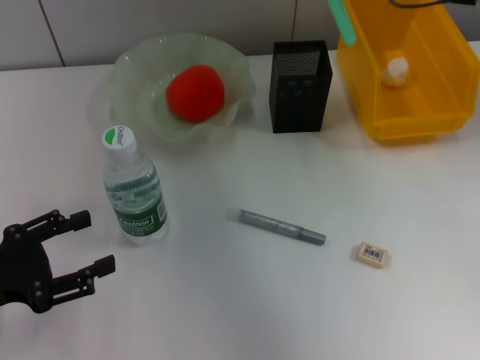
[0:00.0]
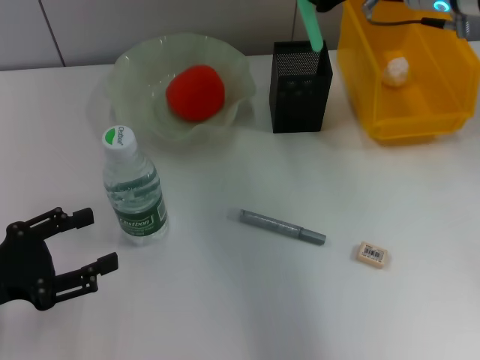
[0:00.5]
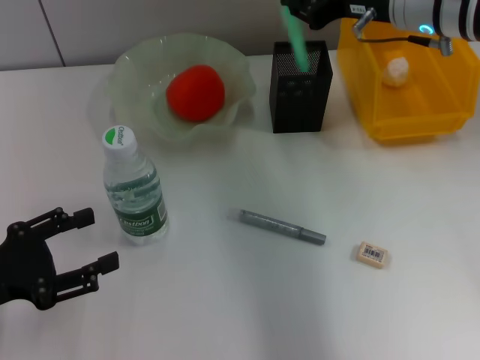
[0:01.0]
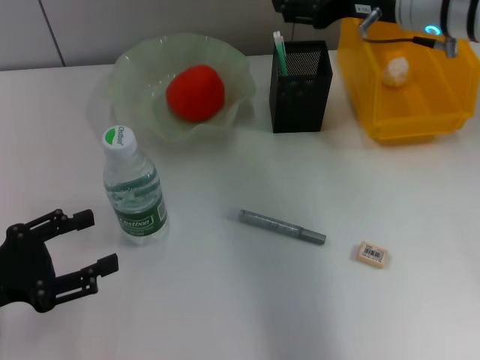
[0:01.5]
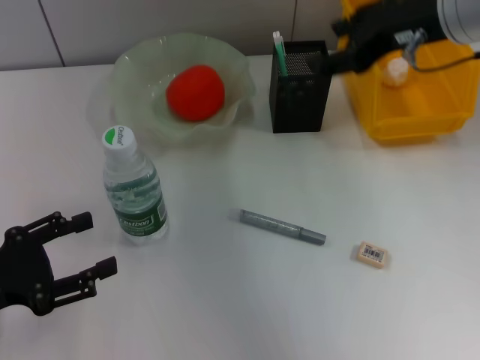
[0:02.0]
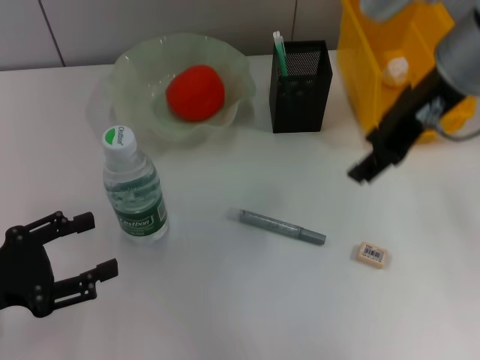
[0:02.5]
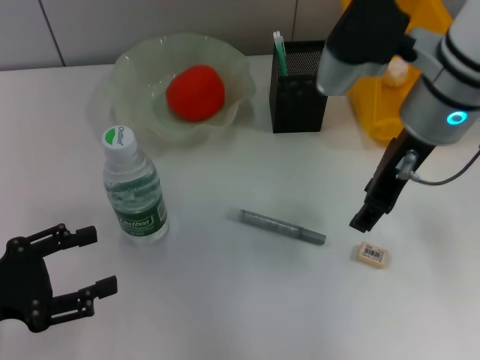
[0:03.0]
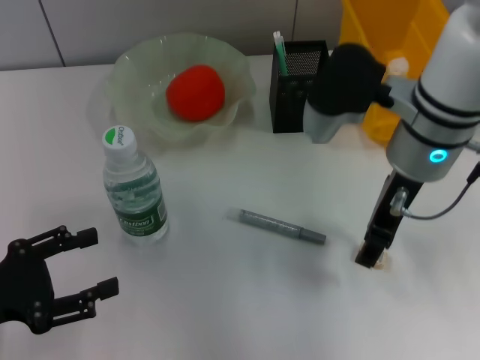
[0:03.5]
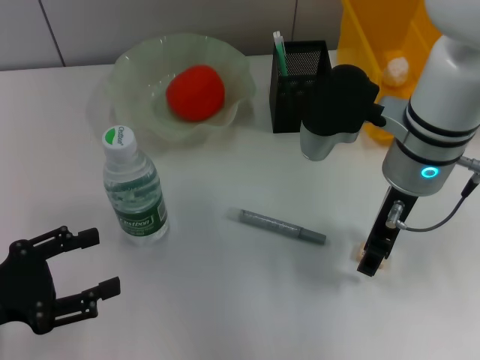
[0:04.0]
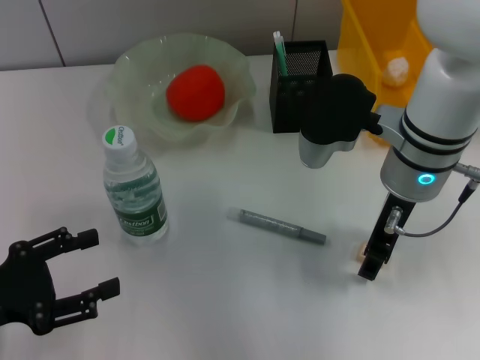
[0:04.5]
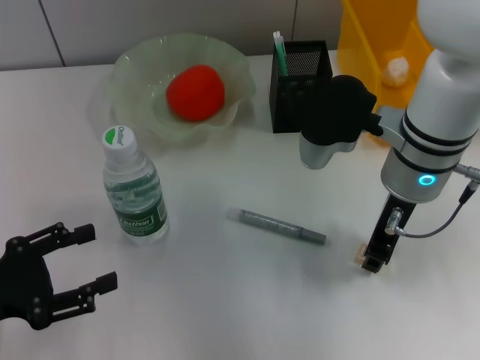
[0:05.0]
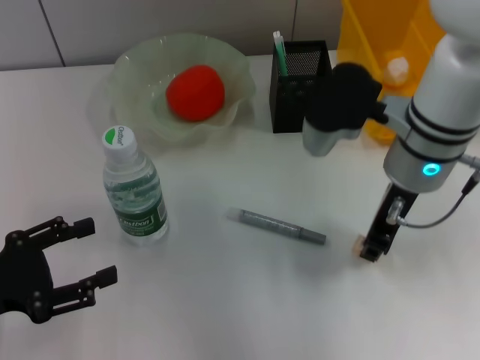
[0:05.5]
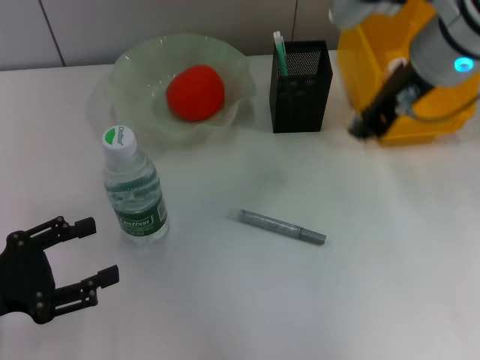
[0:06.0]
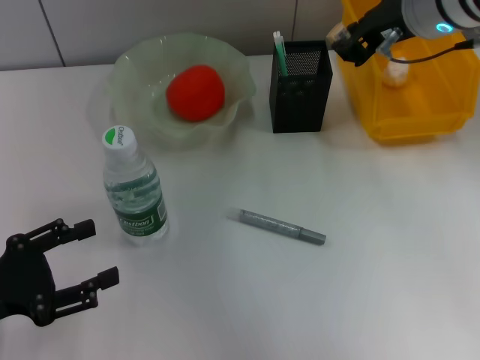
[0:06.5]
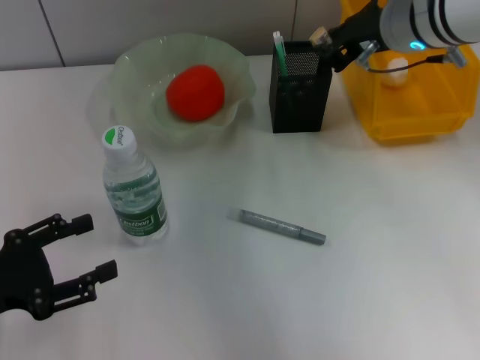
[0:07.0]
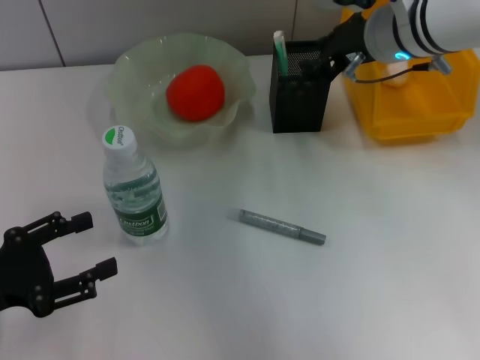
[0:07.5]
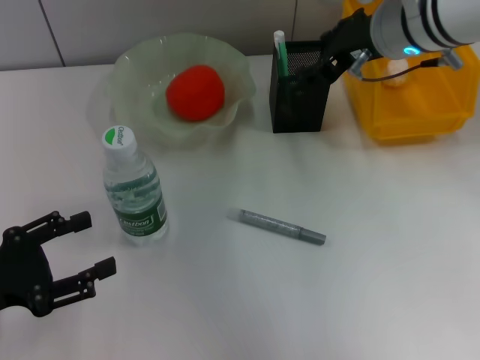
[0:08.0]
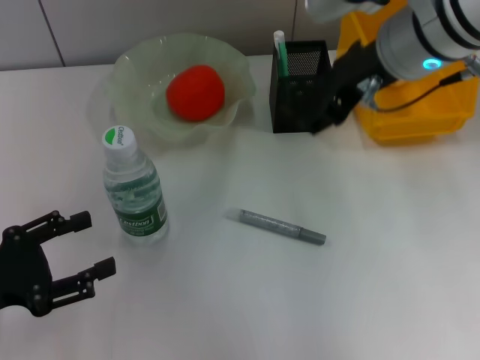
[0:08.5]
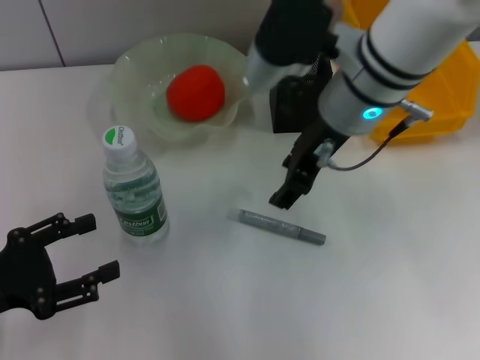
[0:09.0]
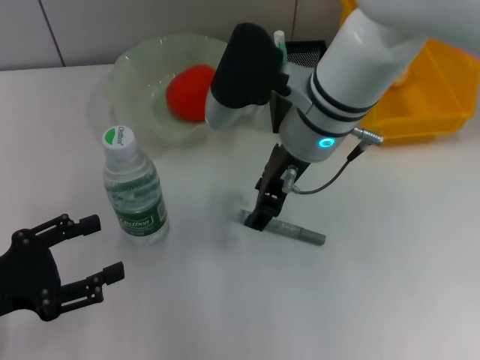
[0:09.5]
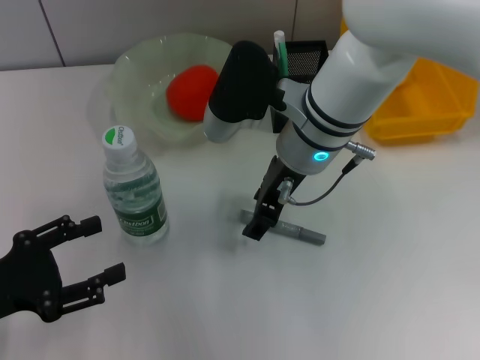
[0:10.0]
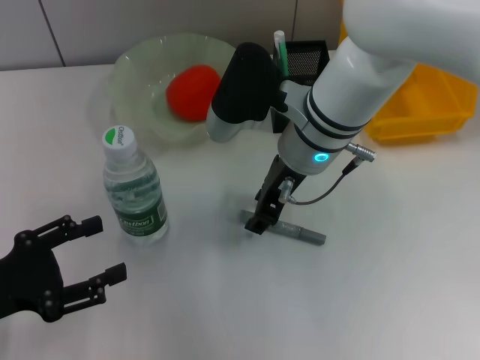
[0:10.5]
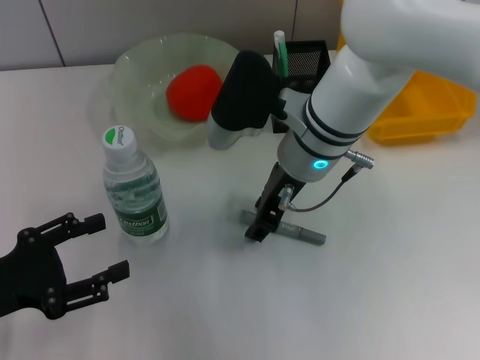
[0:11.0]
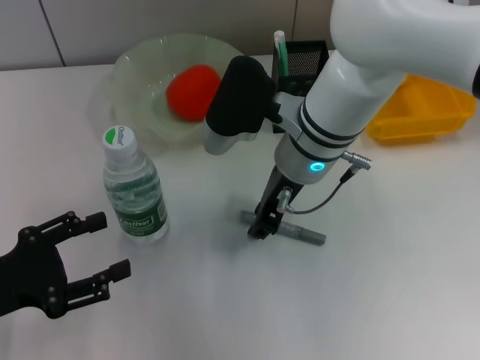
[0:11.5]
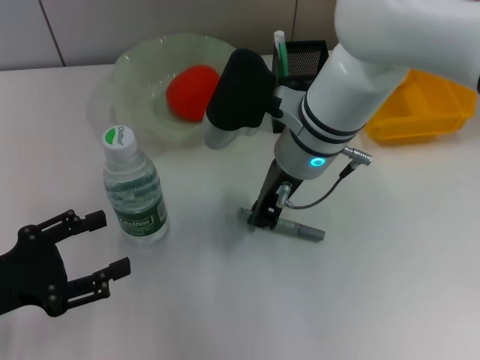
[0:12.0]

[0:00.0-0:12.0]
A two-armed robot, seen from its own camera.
Step, 0:01.5 to 0:05.0: Grab the eraser with the right hand.
Step, 0:05.5 to 0:07.0: Put the eraser into the pen holder with the right hand.
Step, 0:08.0 to 0:11.5: Grab the gray glue with the right hand.
0:00.0 to 0:02.0: The right gripper opens.
0:02.0 to 0:04.0: The right gripper travels downward by approximately 10 cm.
0:04.0 to 0:06.0: The right gripper heads upward, covering about 10 cm, and closes its fingers.
0:06.0 to 0:08.0: The right gripper opens.
0:08.0 to 0:10.0: The right gripper travels to the left and downward by roughly 10 cm.
0:10.0 to 0:12.0: The right gripper closes its fingers.

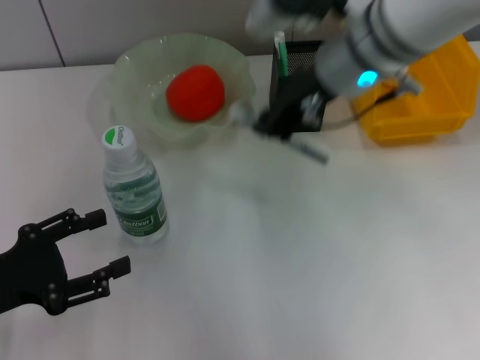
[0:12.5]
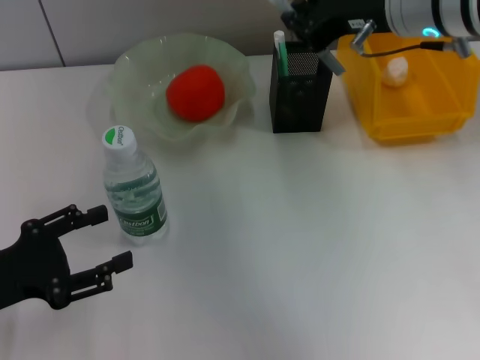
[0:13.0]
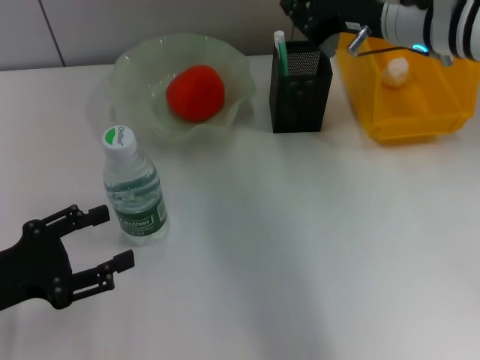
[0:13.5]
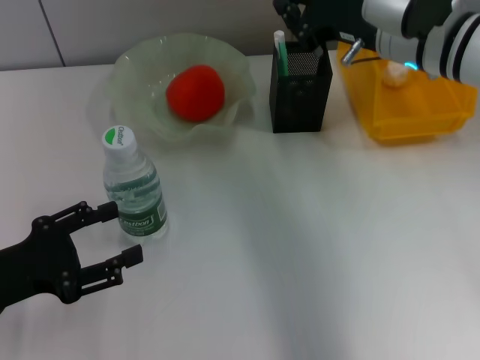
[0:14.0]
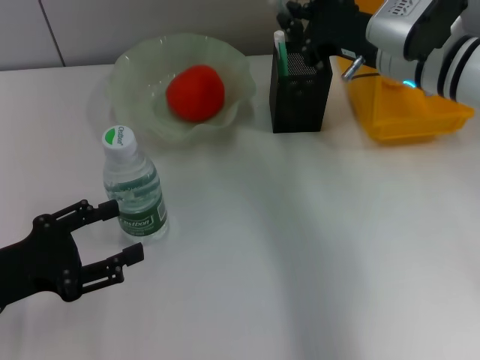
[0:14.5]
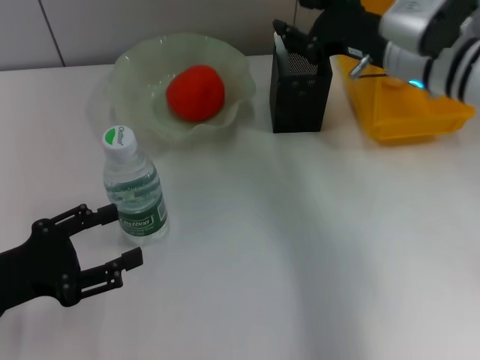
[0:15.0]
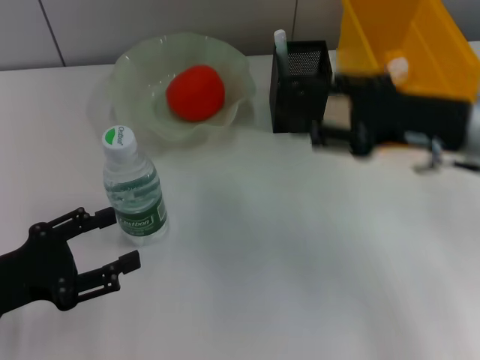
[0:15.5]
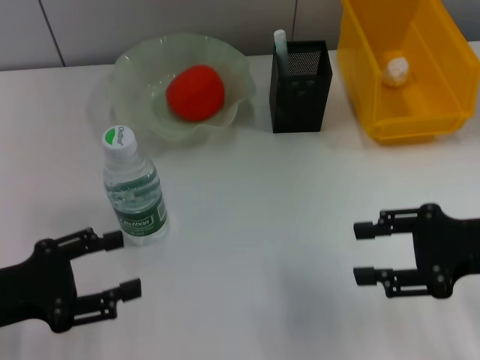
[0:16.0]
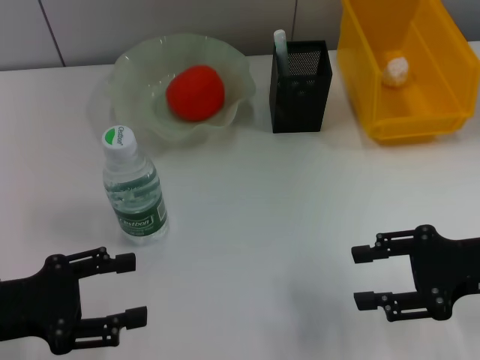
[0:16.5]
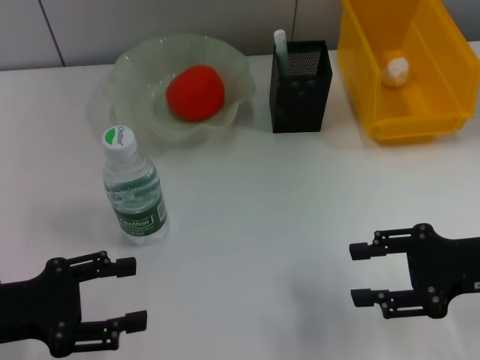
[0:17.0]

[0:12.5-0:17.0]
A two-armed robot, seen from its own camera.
Step, 0:12.5 to 0:14.5: Place the gray glue into the pen holder with the right hand.
0:12.5 to 0:14.5: The right gripper shifts some 10 cm to the right and downward.
0:14.5 to 0:17.0: The right gripper travels backward and to the right by about 20 cm, and opens.
